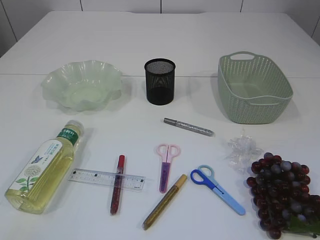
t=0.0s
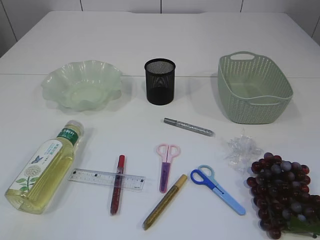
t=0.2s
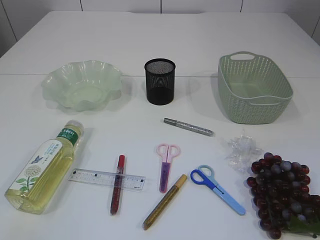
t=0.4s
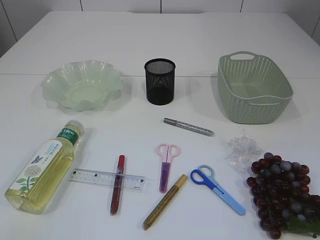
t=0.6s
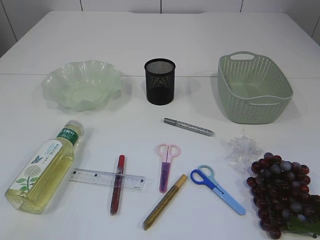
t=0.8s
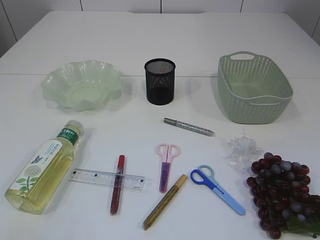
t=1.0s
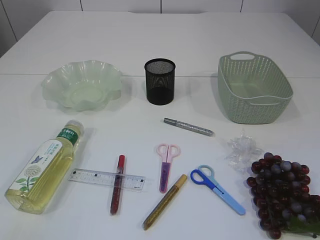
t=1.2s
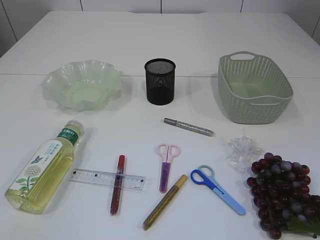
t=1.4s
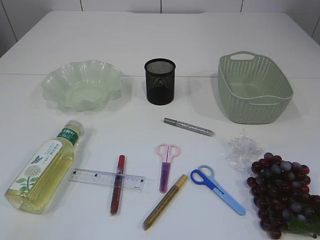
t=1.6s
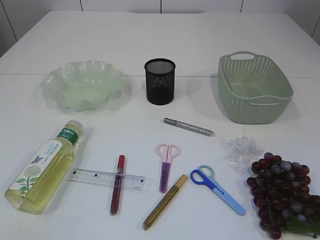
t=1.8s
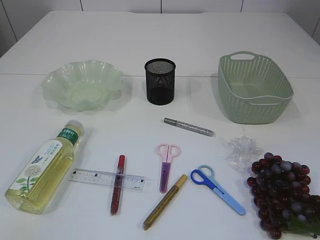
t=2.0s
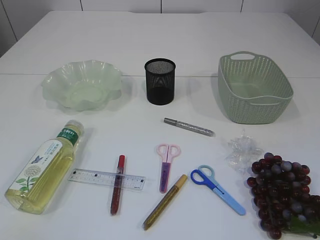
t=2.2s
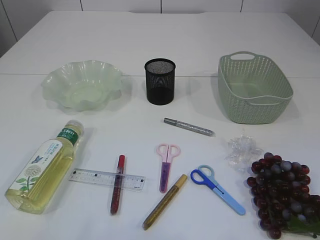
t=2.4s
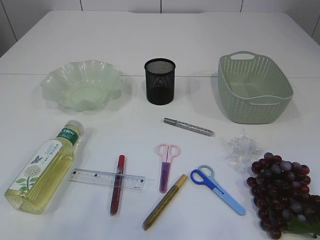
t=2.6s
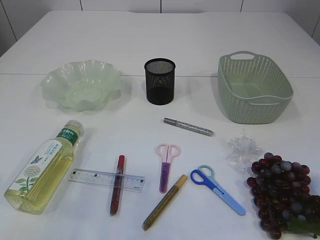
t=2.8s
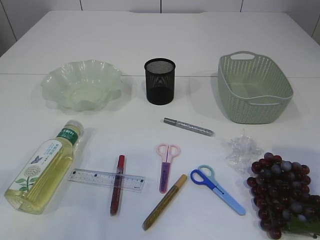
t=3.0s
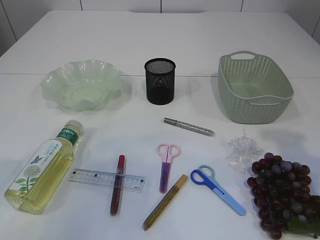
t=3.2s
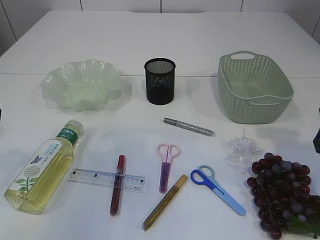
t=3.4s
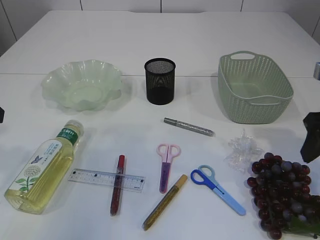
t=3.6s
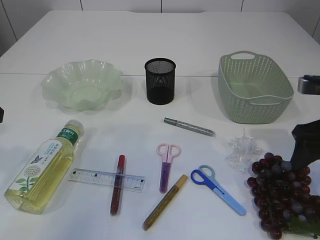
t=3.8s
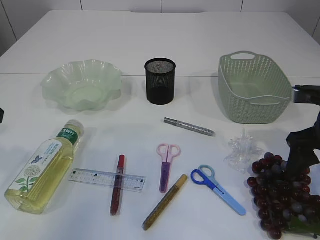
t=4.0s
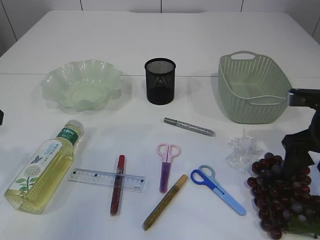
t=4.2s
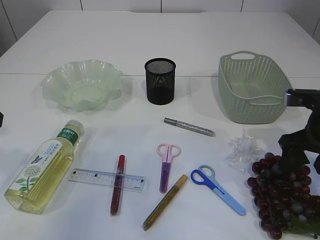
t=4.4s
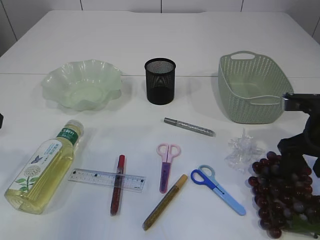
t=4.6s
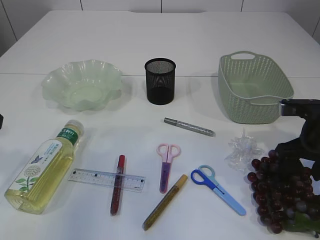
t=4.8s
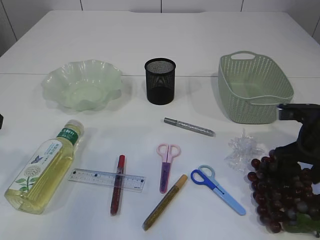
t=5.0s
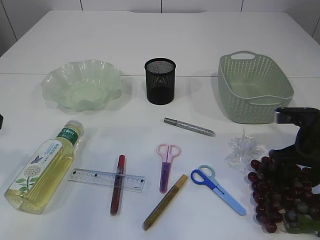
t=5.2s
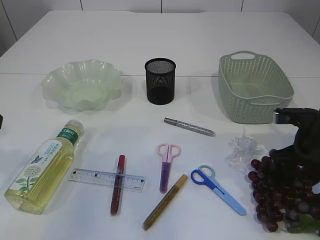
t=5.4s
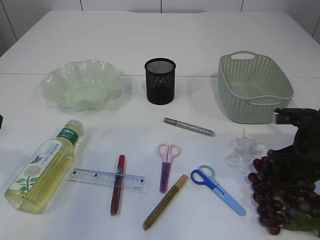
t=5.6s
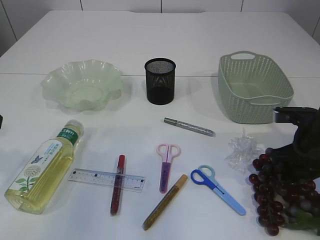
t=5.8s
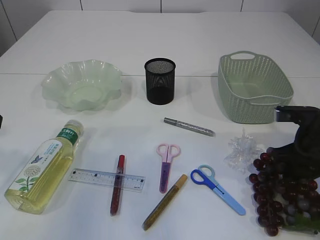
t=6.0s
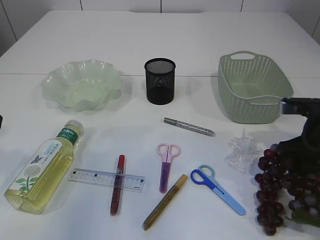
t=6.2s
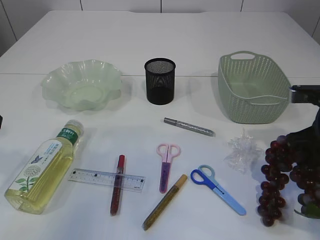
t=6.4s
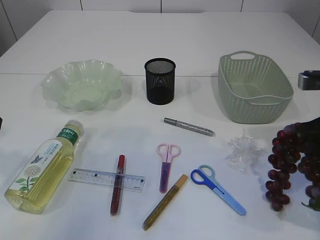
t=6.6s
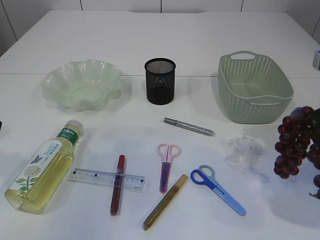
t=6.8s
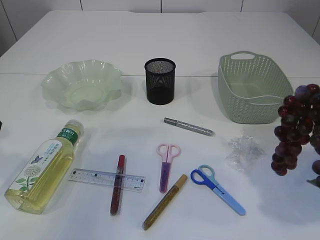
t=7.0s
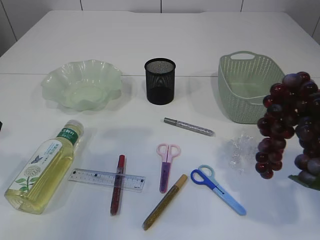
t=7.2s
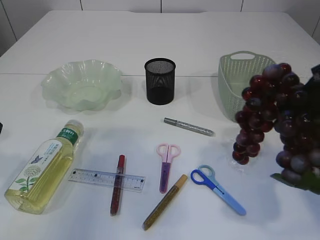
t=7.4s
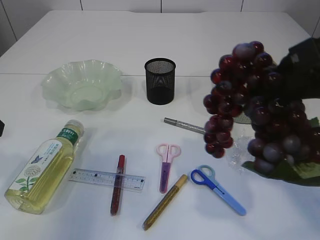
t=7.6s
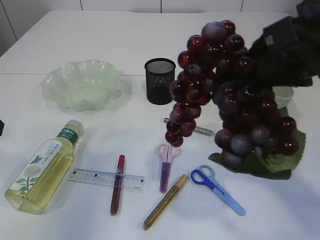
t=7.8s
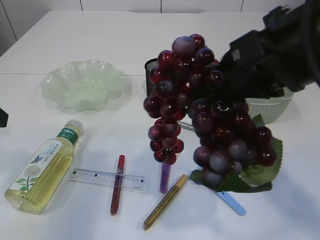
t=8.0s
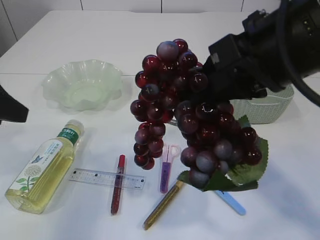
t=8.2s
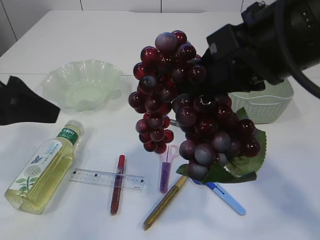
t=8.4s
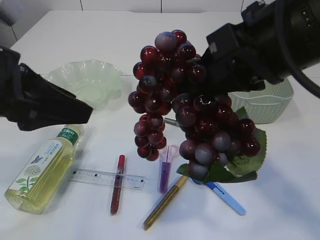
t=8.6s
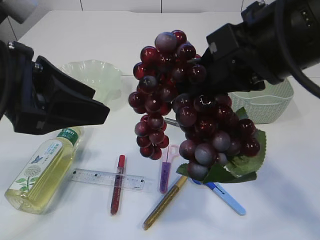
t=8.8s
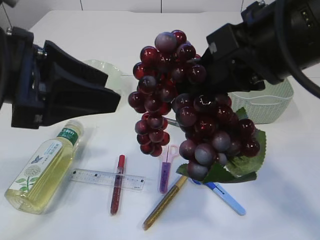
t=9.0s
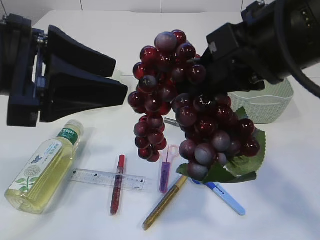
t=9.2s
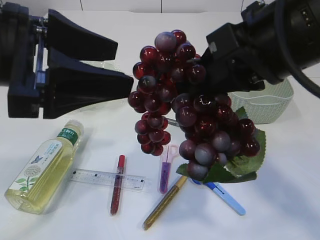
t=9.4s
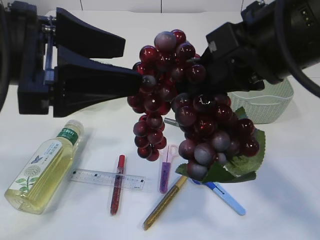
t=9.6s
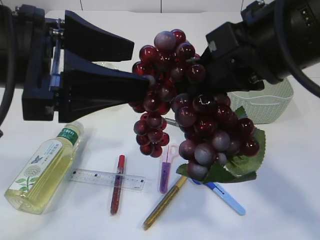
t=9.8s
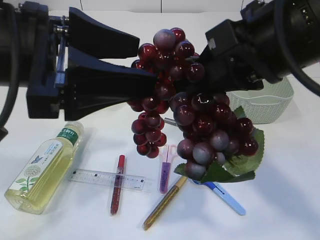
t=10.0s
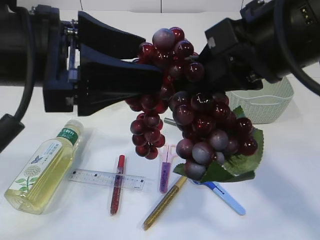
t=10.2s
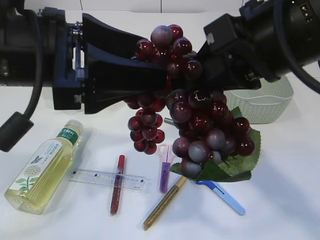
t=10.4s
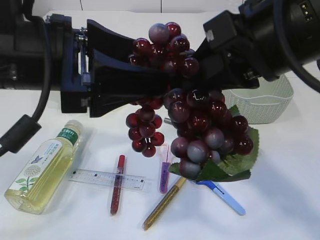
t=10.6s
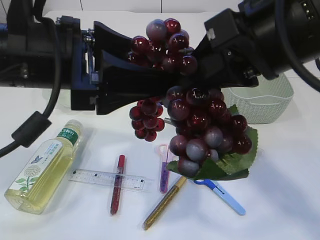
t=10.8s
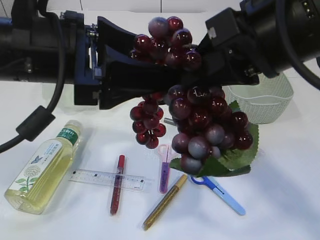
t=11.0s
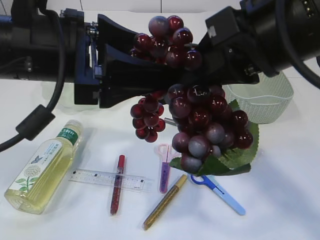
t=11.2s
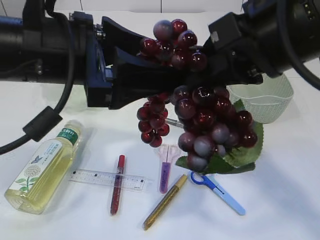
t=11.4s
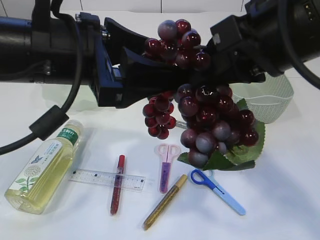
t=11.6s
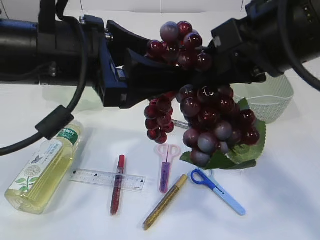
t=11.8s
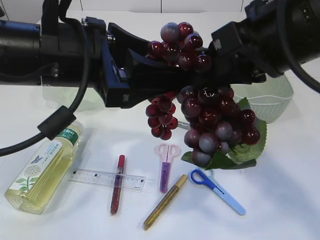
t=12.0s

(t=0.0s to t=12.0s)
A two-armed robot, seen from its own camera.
Step, t=0.0s - t=7.4s: Pick up the grapes.
t=1.6s - t=3.0s: The grippers both shift forward by approximately 15 cm.
t=3.0s - t=4.4s: The right gripper heads forward and downward, covering approximately 20 cm.
t=4.4s - t=6.0s: The right gripper closes.
t=6.0s - t=7.6s: The right gripper is displaced upward and backward by roughly 25 cm.
t=7.6s - t=9.0s: The right gripper travels to the left by some 5 cm. Meanwhile the left gripper heads to the right, covering about 10 cm.
t=9.0s - t=10.4s: The left gripper opens up.

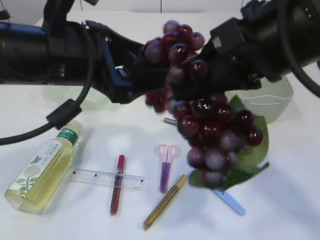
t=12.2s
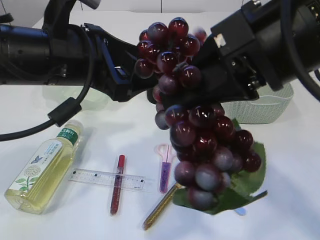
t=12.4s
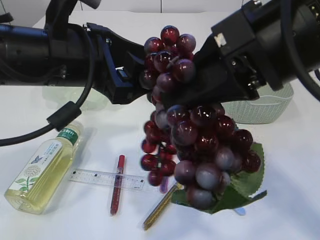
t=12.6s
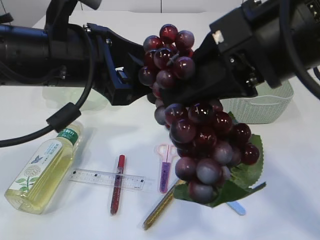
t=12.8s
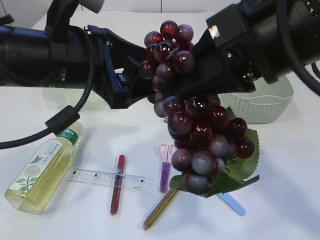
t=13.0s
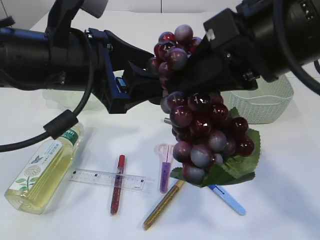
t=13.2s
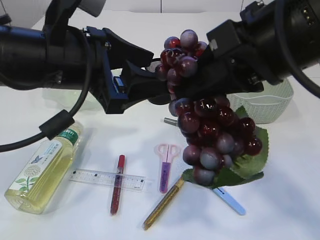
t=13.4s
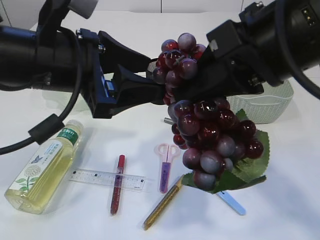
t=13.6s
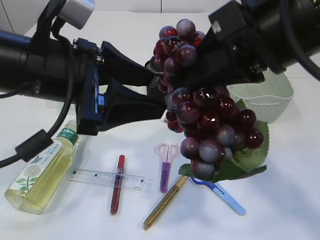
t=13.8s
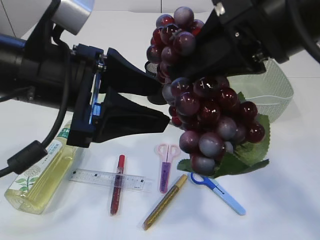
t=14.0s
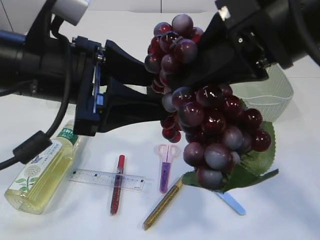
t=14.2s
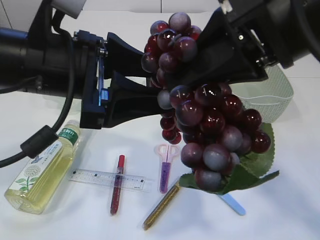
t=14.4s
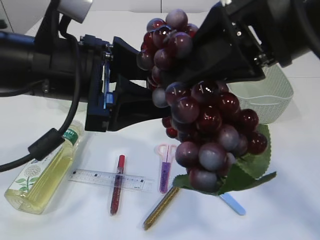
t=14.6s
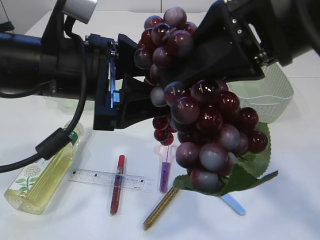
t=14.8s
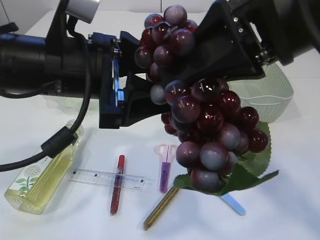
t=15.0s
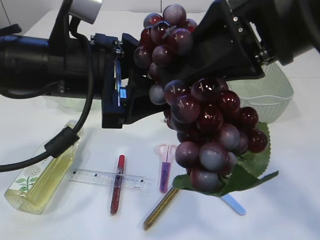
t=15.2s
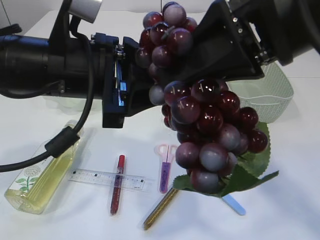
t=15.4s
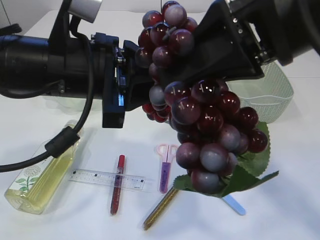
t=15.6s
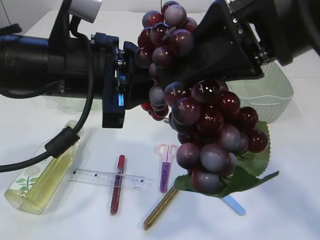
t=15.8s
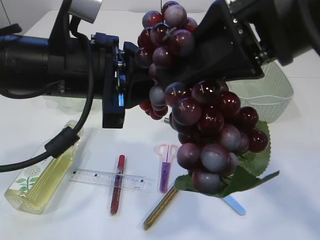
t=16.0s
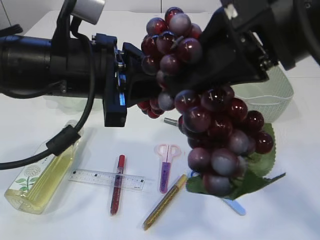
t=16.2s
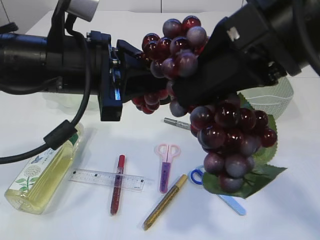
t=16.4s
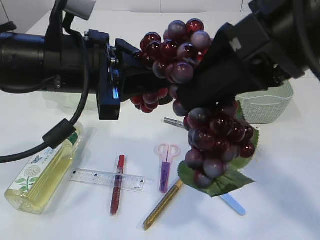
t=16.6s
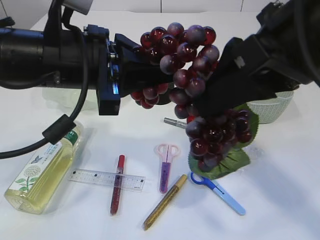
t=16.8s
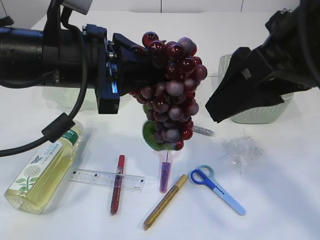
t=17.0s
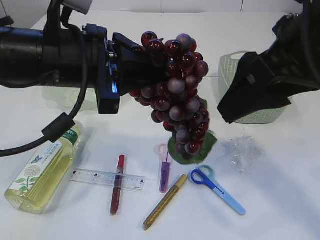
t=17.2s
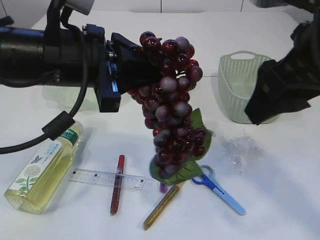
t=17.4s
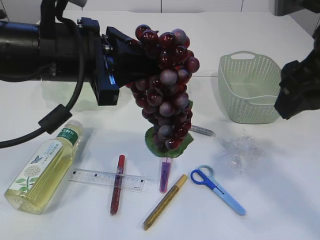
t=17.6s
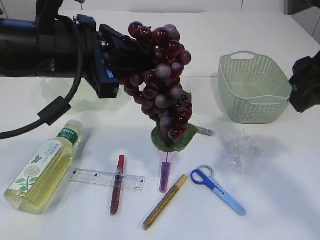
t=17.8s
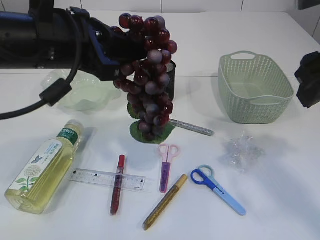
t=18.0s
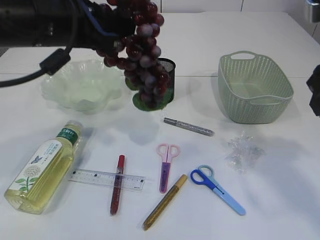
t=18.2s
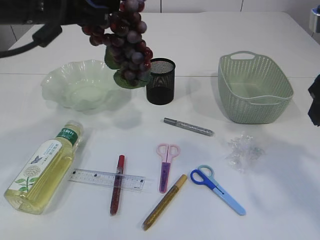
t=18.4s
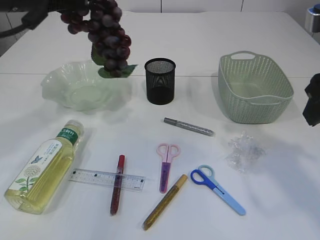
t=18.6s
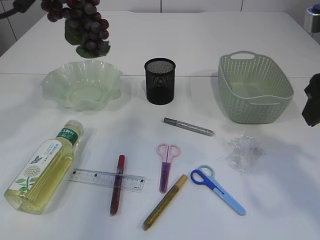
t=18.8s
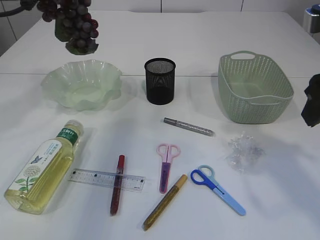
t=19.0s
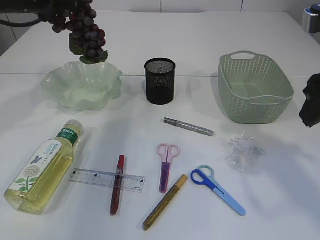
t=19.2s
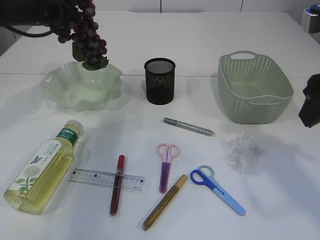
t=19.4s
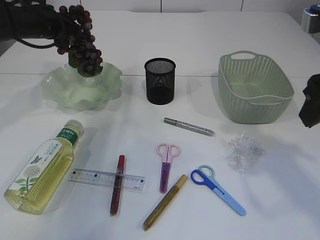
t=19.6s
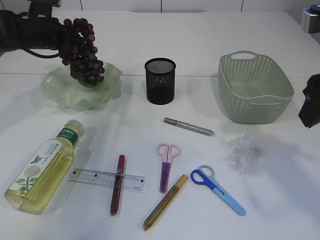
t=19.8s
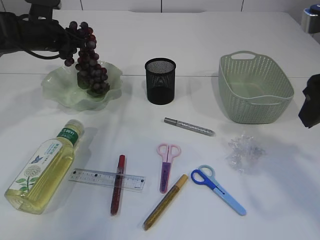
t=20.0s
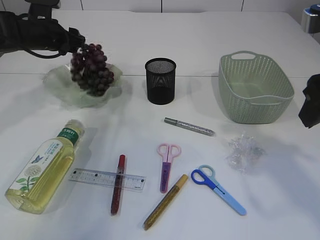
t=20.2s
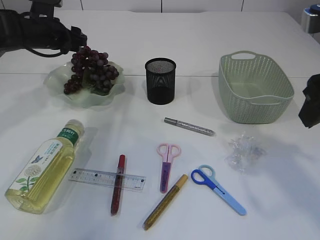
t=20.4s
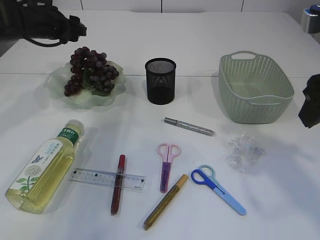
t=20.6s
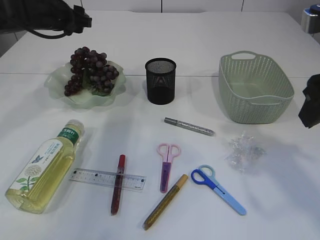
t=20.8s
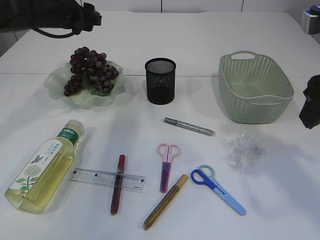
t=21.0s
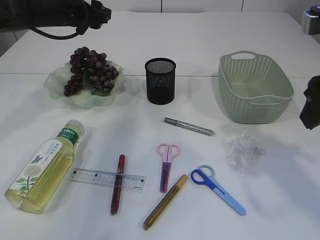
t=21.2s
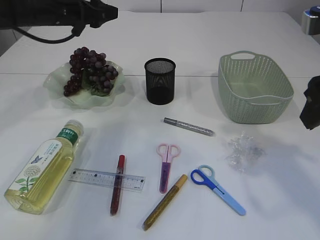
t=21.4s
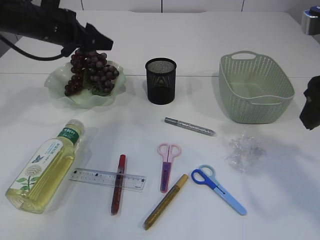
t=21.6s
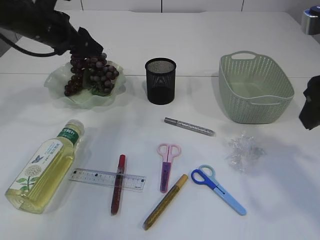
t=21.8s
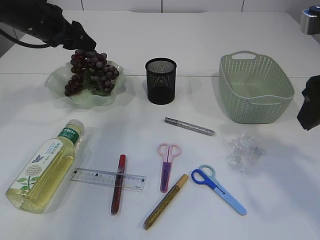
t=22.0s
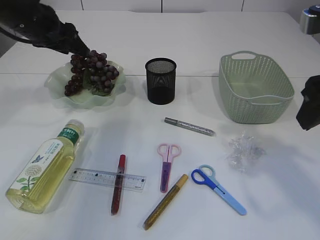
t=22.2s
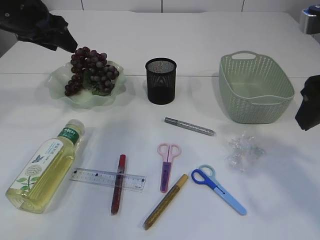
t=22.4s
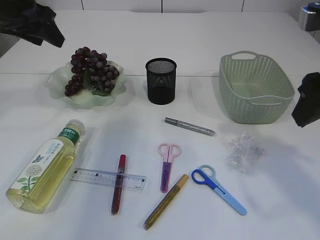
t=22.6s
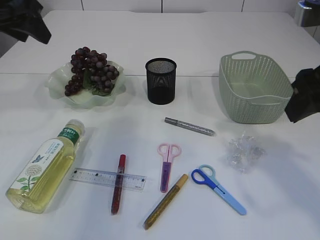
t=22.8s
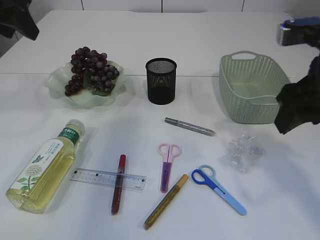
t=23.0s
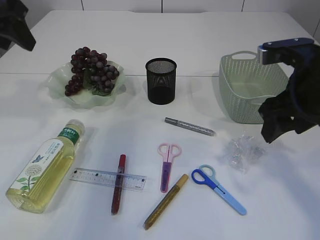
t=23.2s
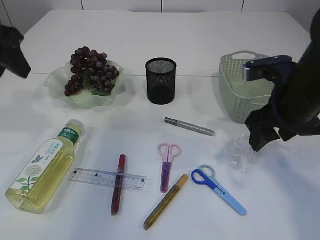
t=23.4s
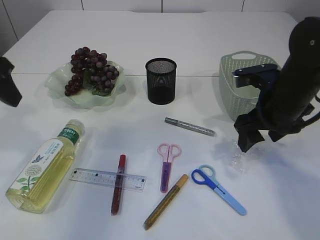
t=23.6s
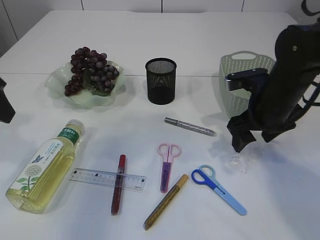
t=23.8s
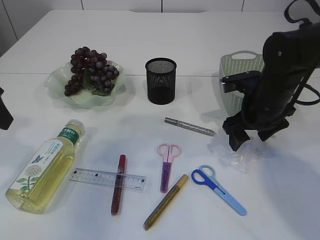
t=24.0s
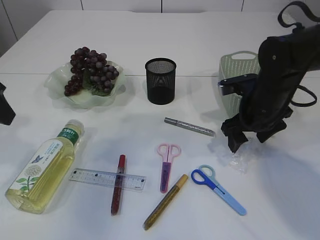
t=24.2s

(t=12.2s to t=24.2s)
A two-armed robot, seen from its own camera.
Step, t=12.2s - t=17.2s: Hand over the grapes.
Step, t=17.4s - t=20.6s: Place the grapes in the plate.
t=15.2s - t=16.6s: The right gripper opens its fingers. The left gripper closes.
t=16.6s - t=18.2s: The right gripper is displaced to the right by about 10 cm; the left gripper ends up roughly 5 cm from where it was.
t=18.2s - t=19.8s: The left gripper travels forward, to the left and downward by approximately 25 cm.
t=19.8s - t=21.2s: The left gripper goes approximately 10 cm to the right and upward, and opens up.
t=21.2s - t=22.6s: The left gripper is displaced backward and upward by roughly 10 cm.
t=22.6s - t=24.2s: The left gripper travels backward by about 15 cm. Meanwhile the right gripper goes some 20 cm downward and forward.
